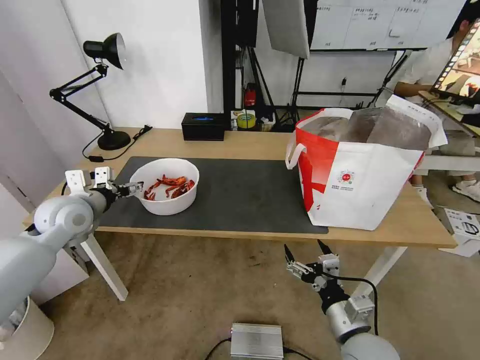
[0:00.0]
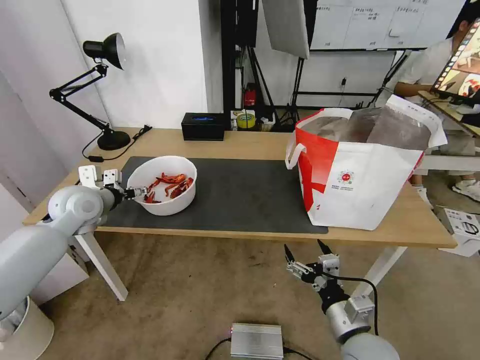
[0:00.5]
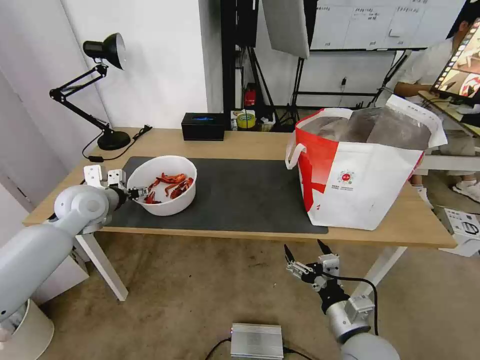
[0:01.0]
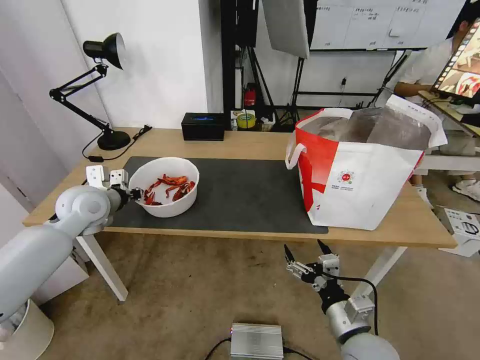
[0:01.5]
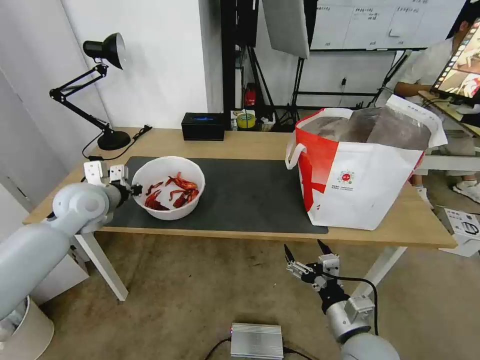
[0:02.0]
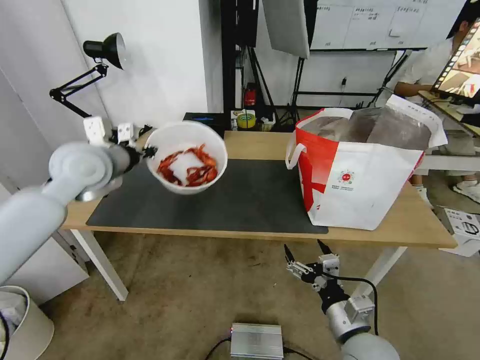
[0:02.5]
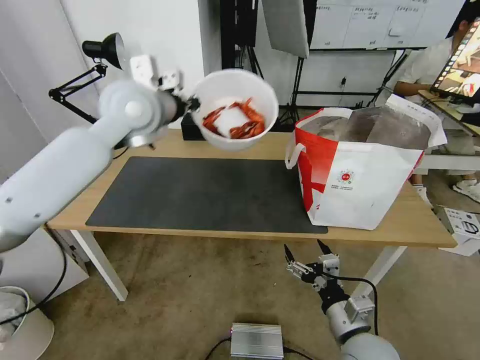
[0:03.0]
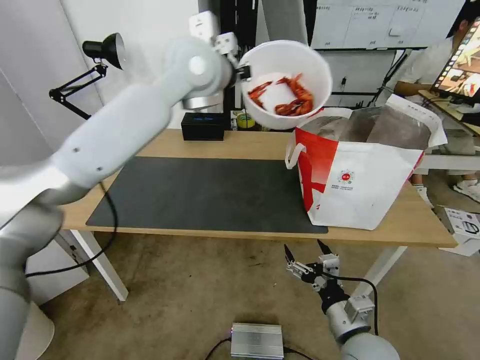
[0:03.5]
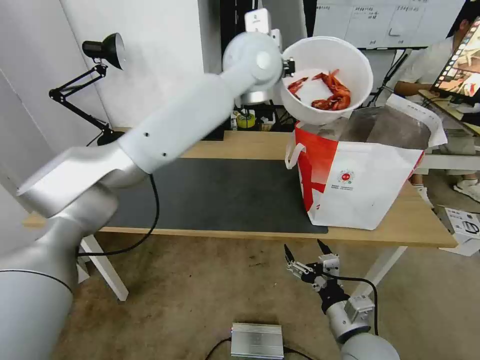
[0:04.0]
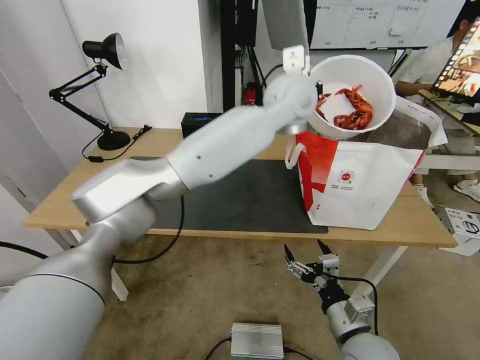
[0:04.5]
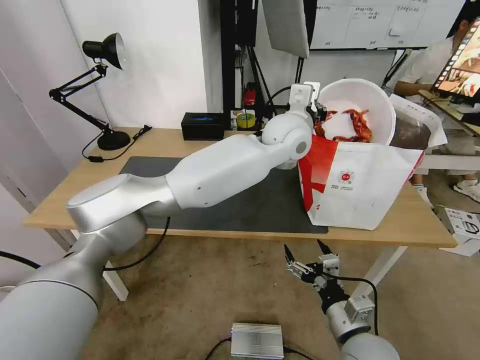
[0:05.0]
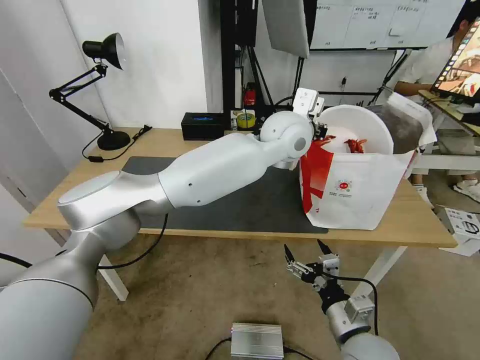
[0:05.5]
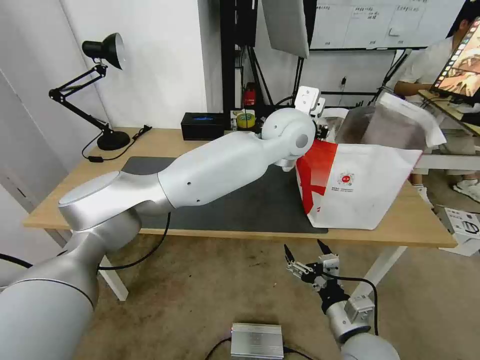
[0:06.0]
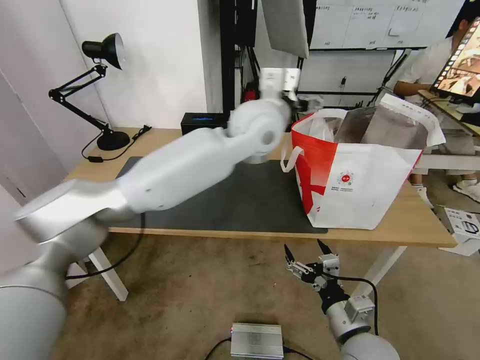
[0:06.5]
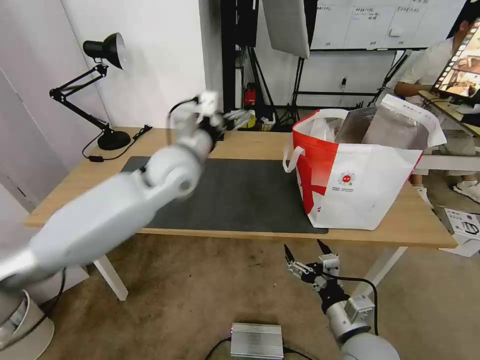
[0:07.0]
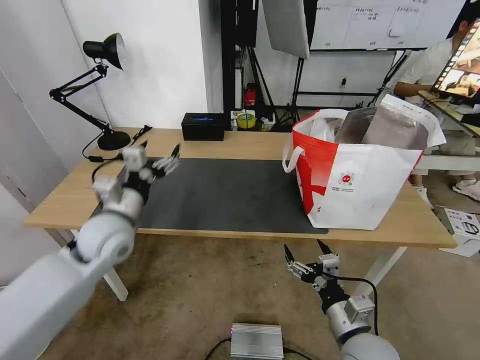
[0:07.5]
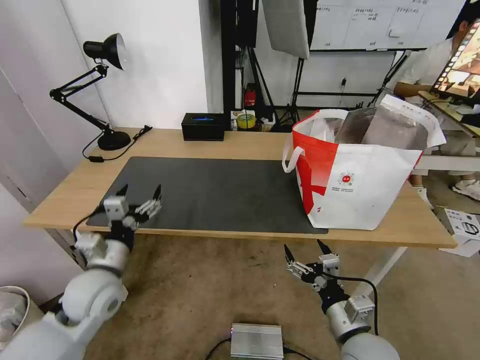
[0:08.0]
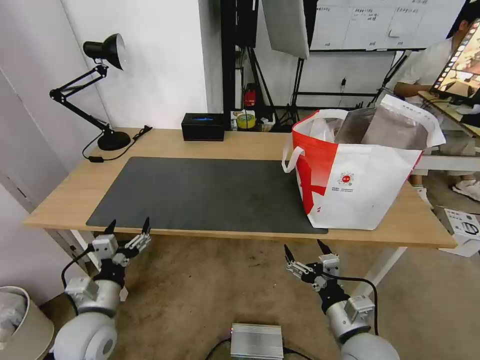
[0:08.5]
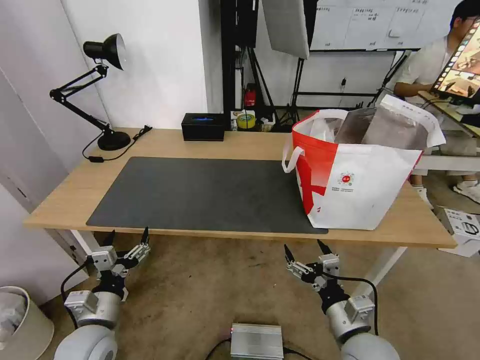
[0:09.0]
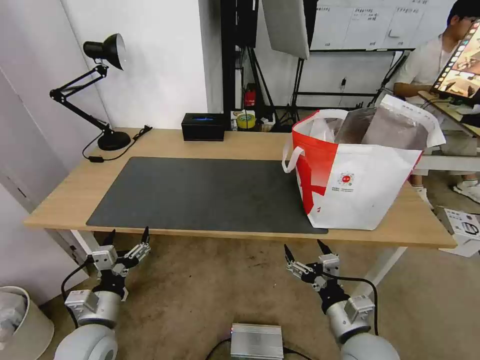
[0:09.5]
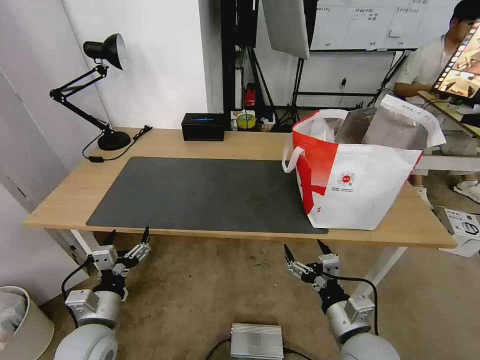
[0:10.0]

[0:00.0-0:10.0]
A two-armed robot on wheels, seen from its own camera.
Task of the whole recording: Pick up the trash from the table and place it into the takeout bag.
0.0 to 2.0 s: The left gripper closes.
2.0 to 4.0 s: The left gripper goes approximately 40 cm to the right and upward.
4.0 to 6.0 s: The left gripper shifts about 10 cm downward and to the right, and opens up.
6.0 to 8.0 s: The left gripper goes some 50 cm to the left, downward and backward, and opens up.
8.0 to 10.0 s: The left gripper heads backward and downward, covering approximately 10 cm.

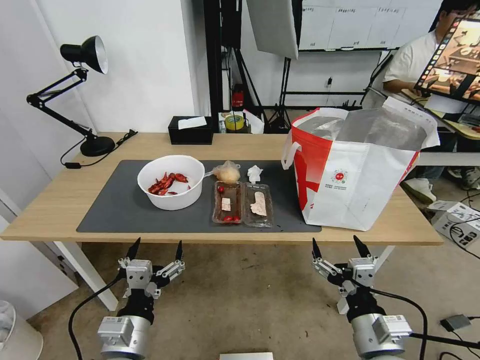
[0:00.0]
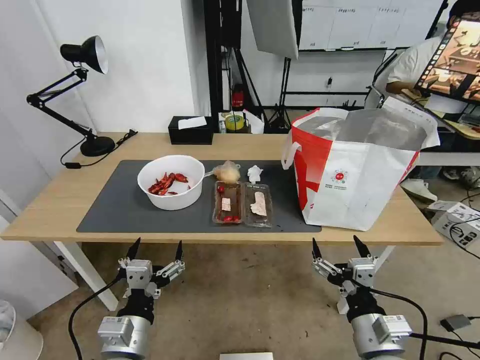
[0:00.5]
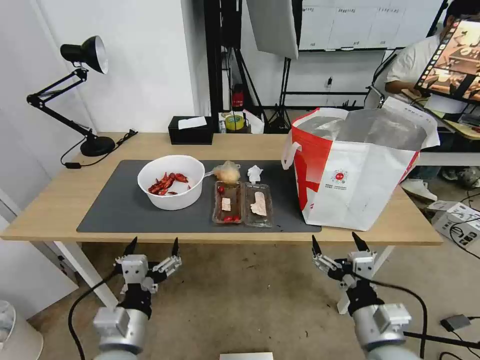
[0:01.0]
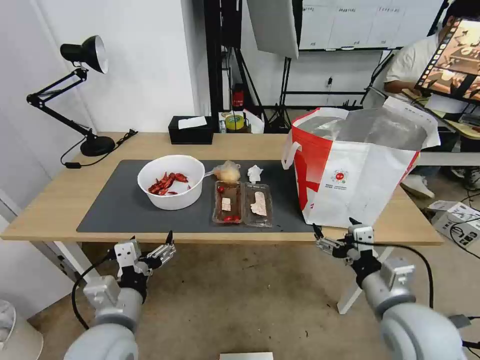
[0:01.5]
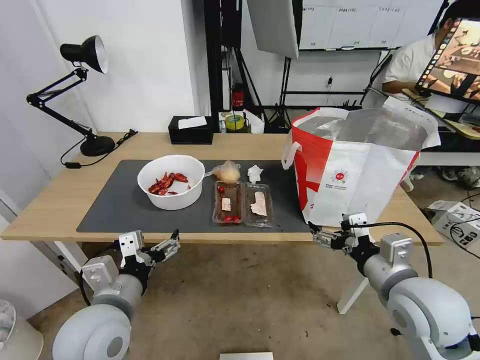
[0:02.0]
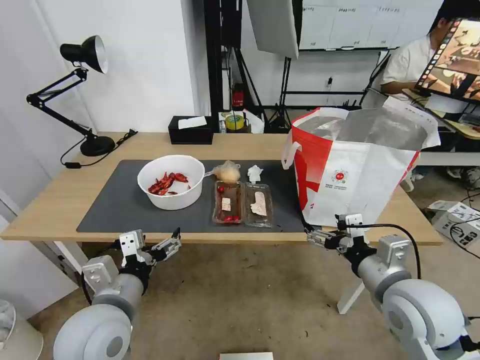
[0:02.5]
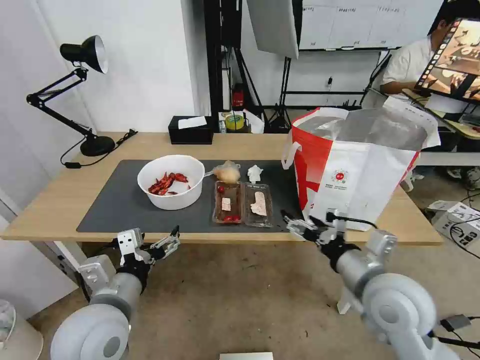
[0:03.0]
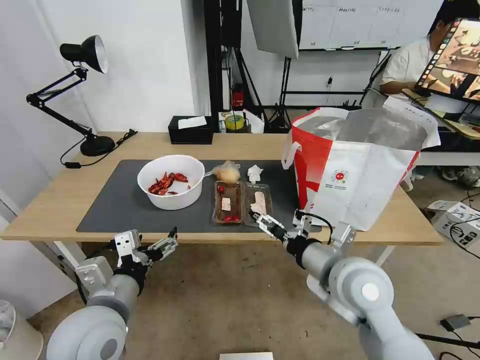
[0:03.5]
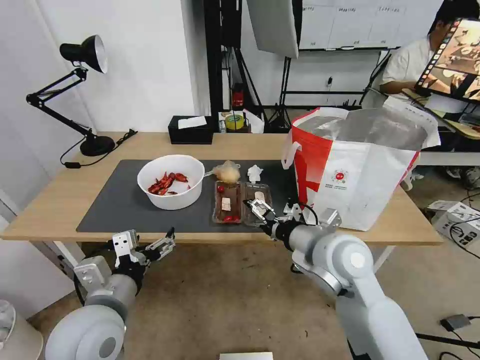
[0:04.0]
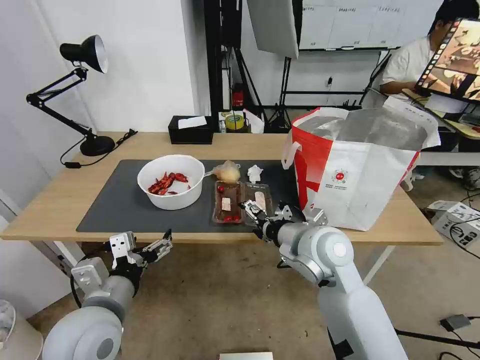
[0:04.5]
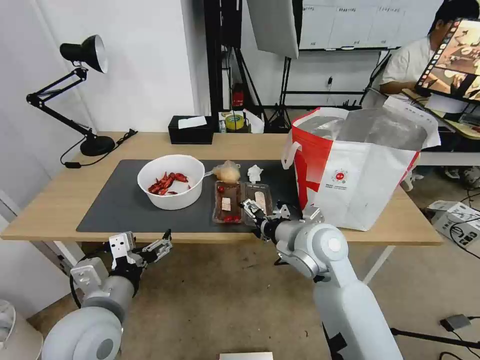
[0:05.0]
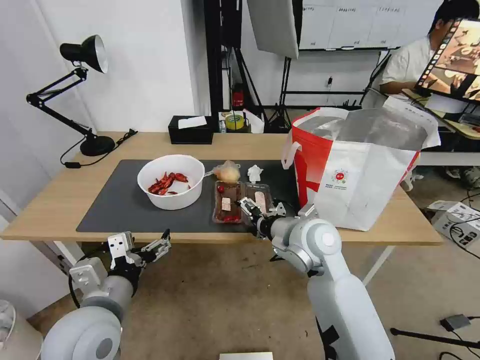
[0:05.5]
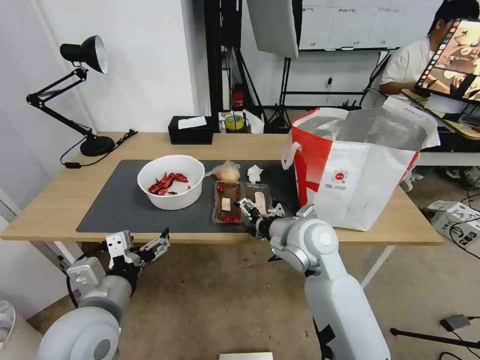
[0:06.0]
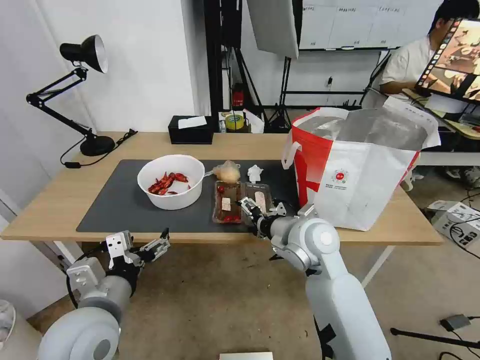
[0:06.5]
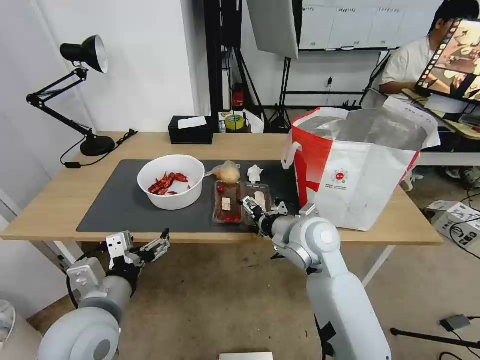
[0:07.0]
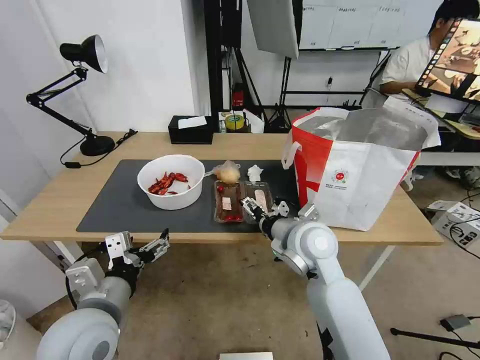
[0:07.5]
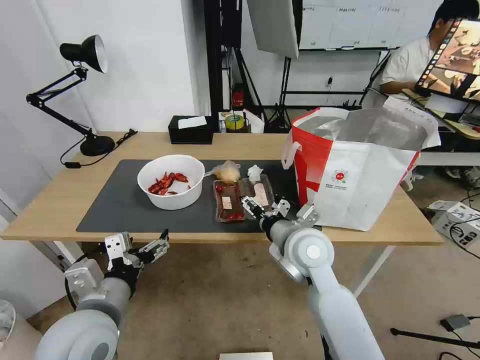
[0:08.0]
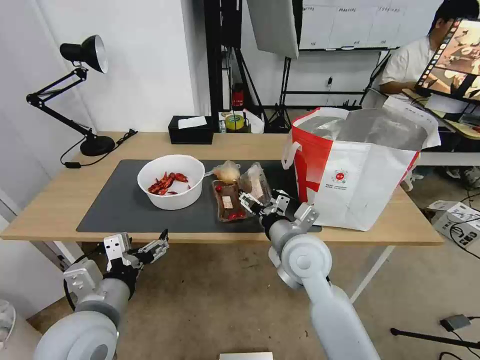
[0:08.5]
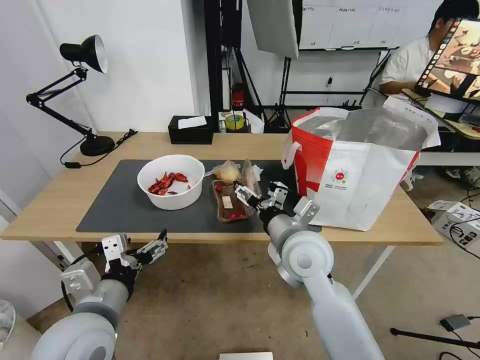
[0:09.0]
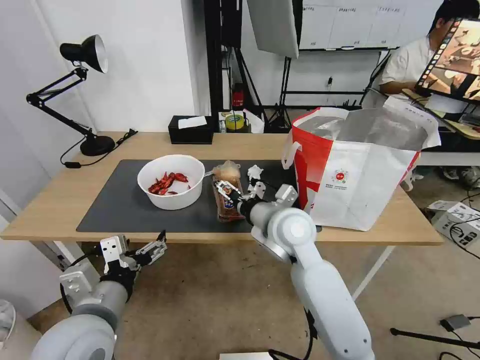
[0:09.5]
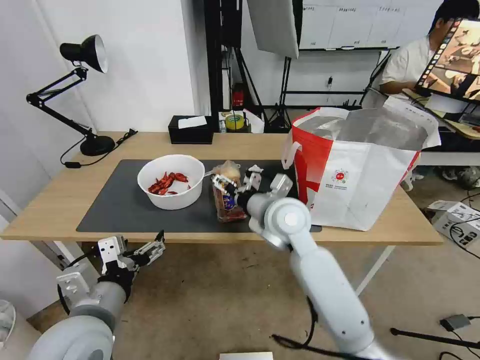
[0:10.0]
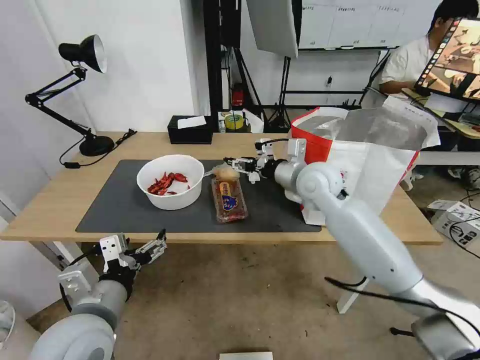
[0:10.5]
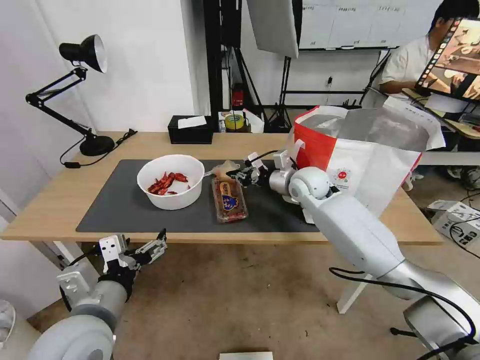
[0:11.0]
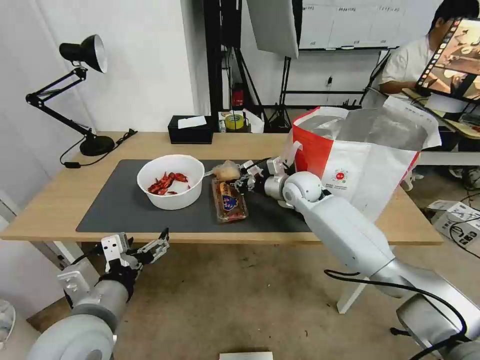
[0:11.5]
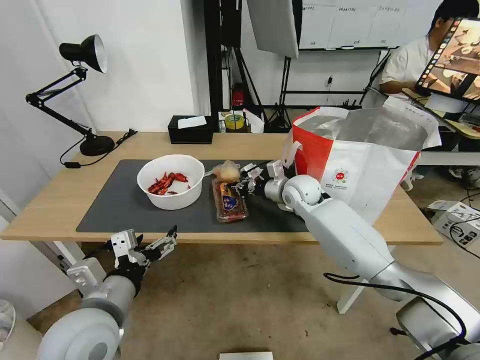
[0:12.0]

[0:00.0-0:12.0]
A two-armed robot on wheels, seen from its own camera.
Task of the whole recording: Pick up the trash from the table and place it into the takeout bag.
2.0 to 4.0 s: The right gripper moves to the left and forward, some 15 cm.
4.0 to 6.0 s: The right gripper is displaced forward by approximately 5 cm.
6.0 to 8.0 s: The grippers stay close to where they were, moving slightly.
8.0 to 10.0 s: The right gripper is displaced forward by approximately 5 cm.
10.0 to 12.0 s: The right gripper heads forward, to the right and downward, covering approximately 15 cm, and closes up.

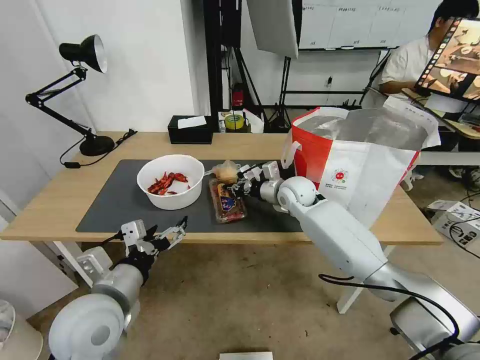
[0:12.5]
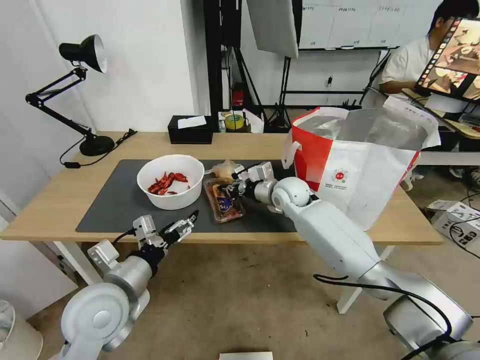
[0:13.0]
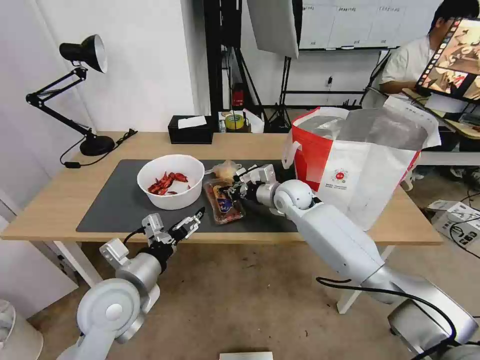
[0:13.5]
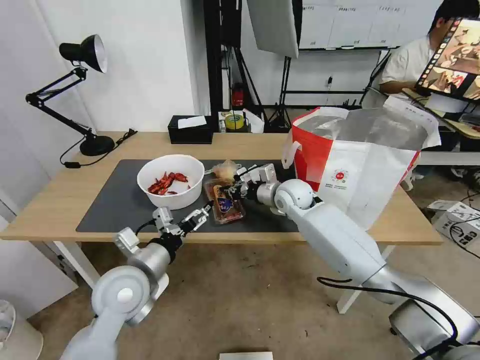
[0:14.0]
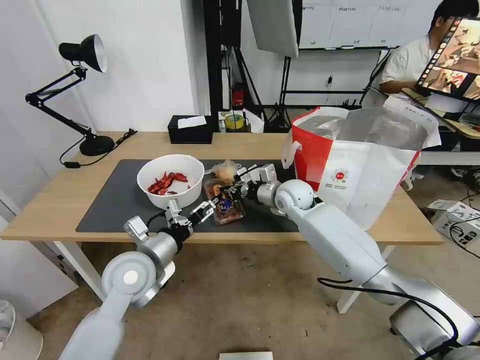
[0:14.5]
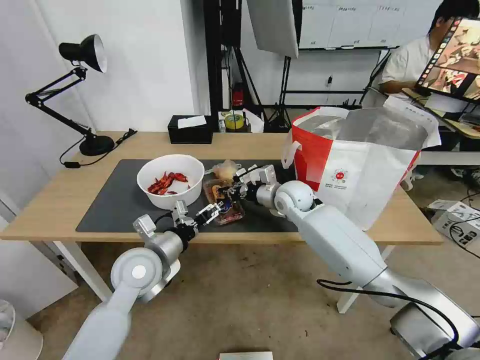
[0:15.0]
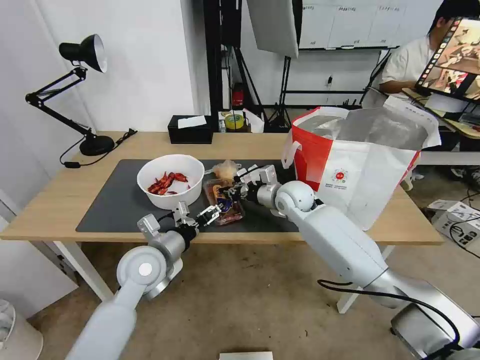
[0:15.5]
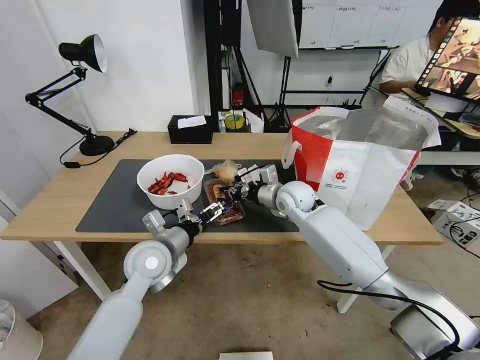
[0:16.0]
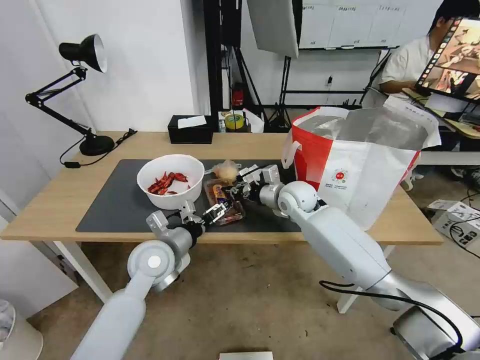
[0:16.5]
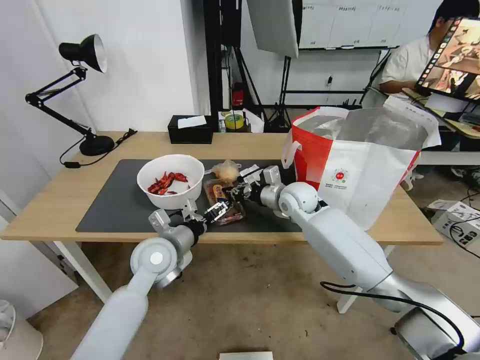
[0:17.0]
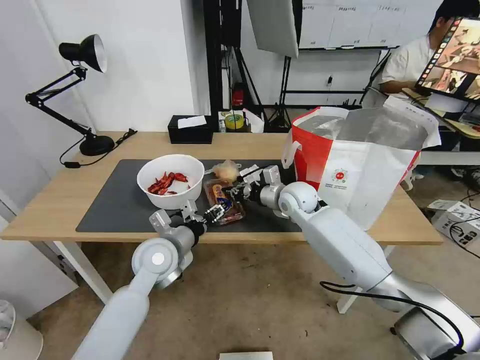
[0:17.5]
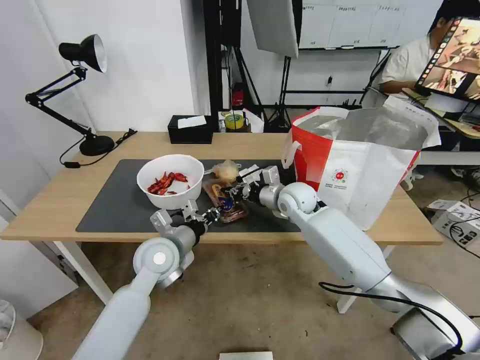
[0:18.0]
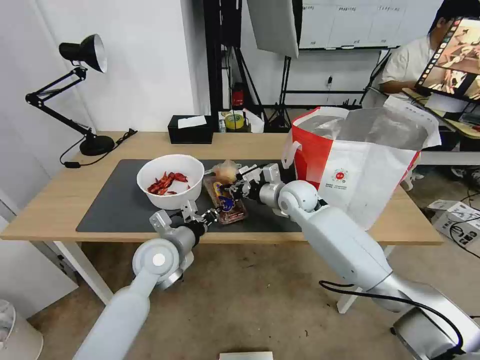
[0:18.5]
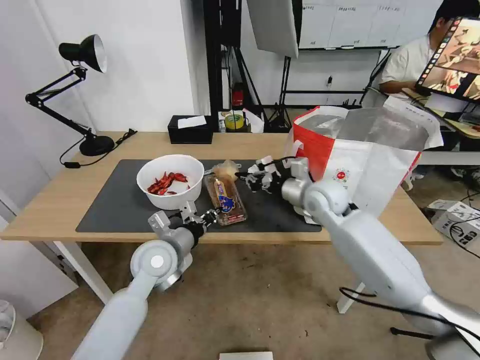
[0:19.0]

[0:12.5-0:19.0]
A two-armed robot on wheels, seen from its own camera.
Task of the whole recording: Pick up the trash from the table and place it into the takeout bag.
12.5 to 14.5 s: The left gripper travels forward by some 10 cm.
14.5 to 17.0 s: The left gripper ends up about 5 cm from where it was.
17.0 to 19.0 s: The right gripper changes place by some 10 cm; the left gripper closes up.
